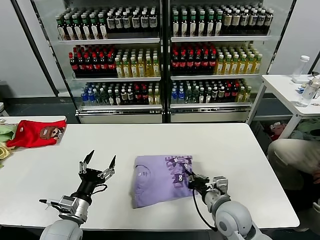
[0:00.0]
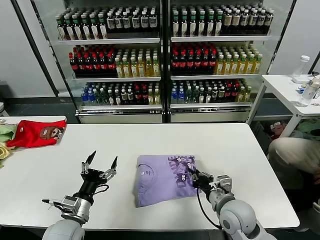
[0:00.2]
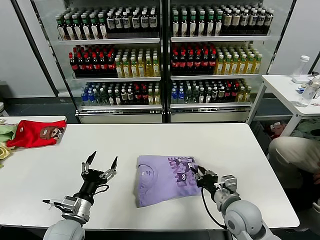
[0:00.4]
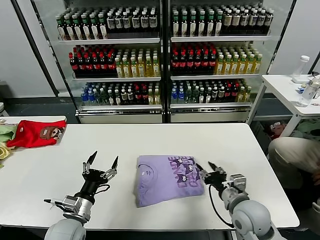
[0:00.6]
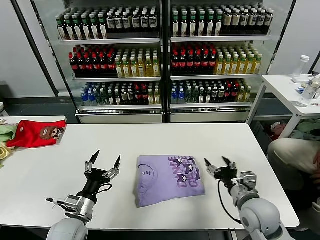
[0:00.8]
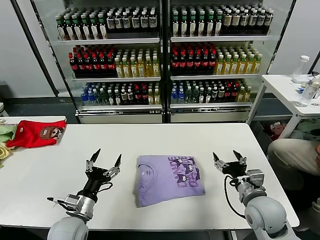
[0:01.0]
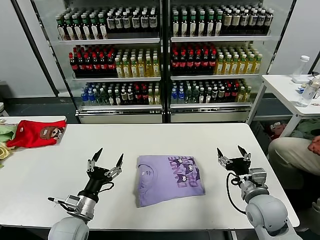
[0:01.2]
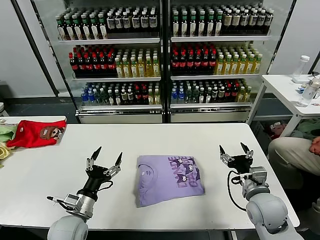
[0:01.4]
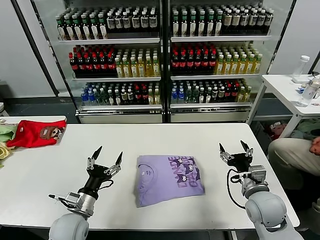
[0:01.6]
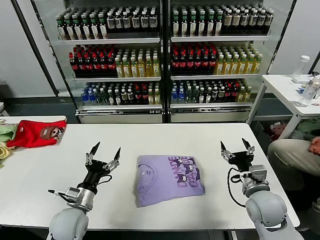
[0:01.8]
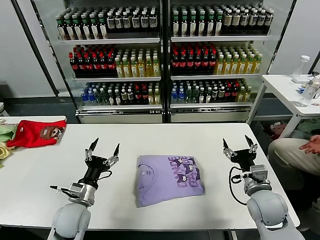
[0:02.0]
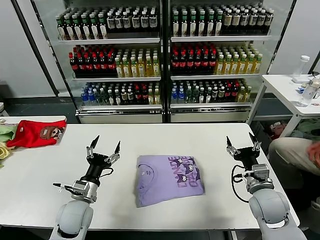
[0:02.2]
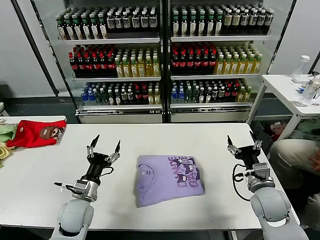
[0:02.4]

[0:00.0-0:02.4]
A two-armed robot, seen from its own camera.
Task of the whole recording: fold and organize the clothes.
0:00.0 to 0:01.2: The right gripper shifts about 10 cm to the right, and opens.
0:01.2 to 0:02.4: The left gripper heads forward, covering roughly 5 cm.

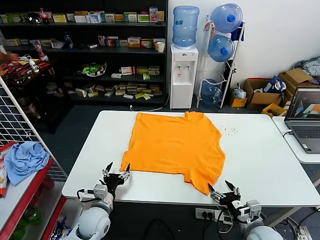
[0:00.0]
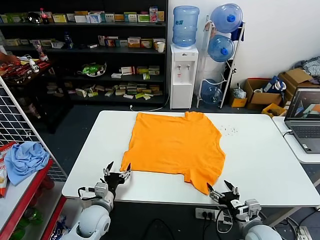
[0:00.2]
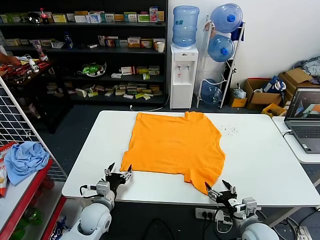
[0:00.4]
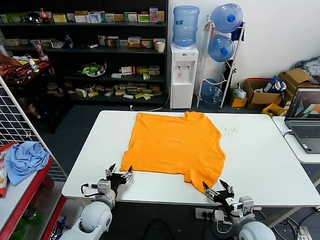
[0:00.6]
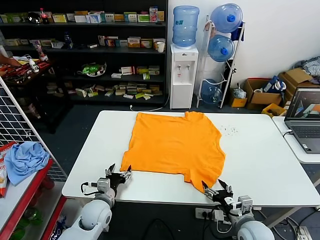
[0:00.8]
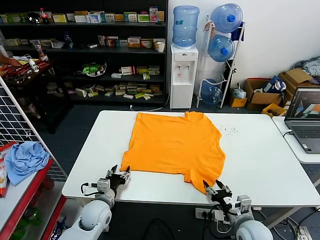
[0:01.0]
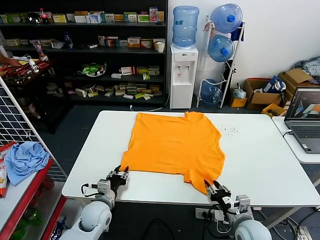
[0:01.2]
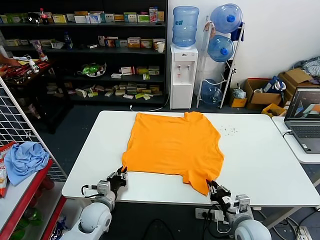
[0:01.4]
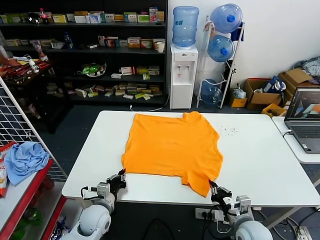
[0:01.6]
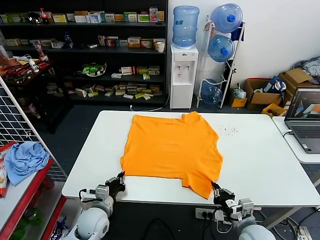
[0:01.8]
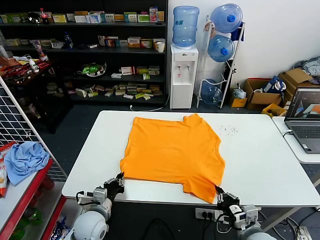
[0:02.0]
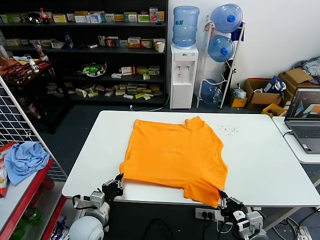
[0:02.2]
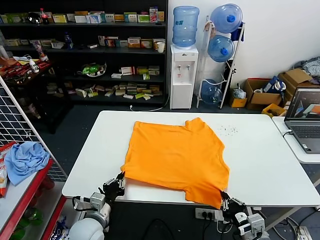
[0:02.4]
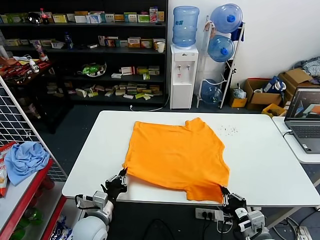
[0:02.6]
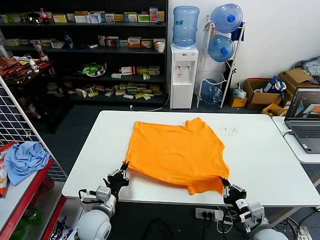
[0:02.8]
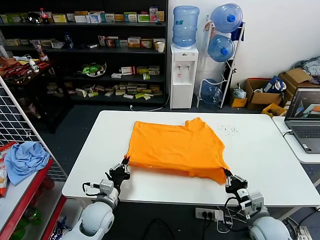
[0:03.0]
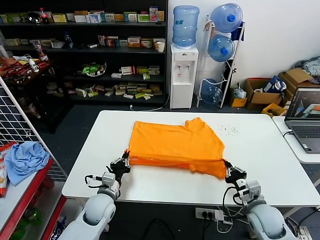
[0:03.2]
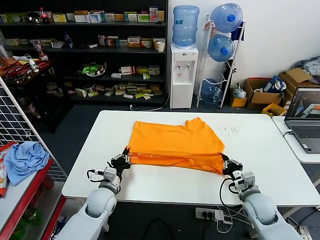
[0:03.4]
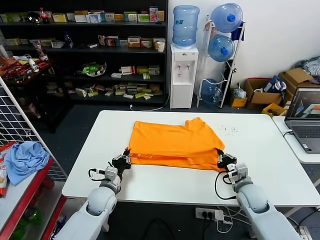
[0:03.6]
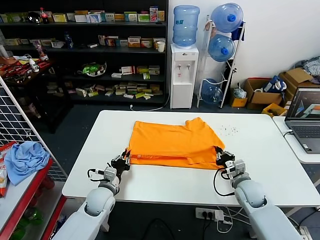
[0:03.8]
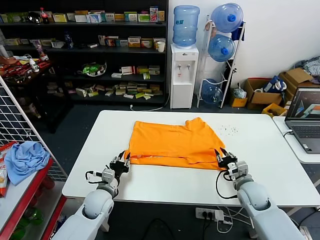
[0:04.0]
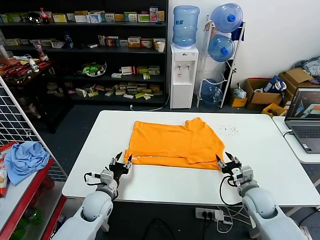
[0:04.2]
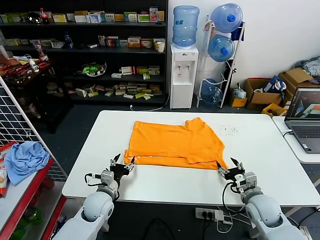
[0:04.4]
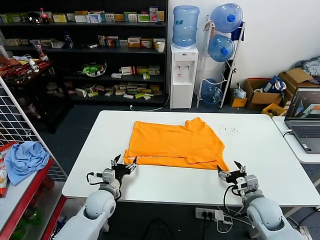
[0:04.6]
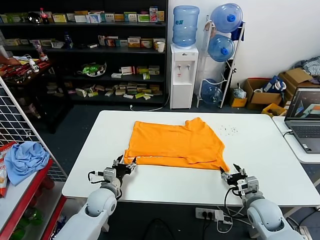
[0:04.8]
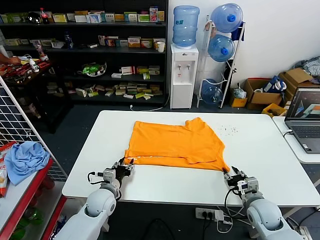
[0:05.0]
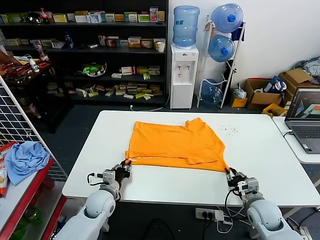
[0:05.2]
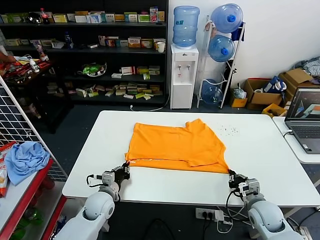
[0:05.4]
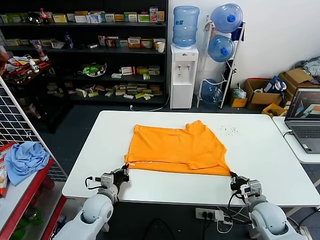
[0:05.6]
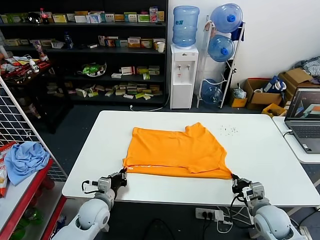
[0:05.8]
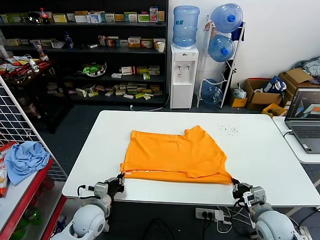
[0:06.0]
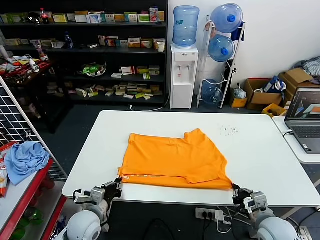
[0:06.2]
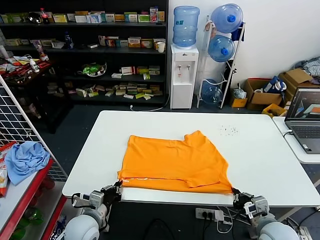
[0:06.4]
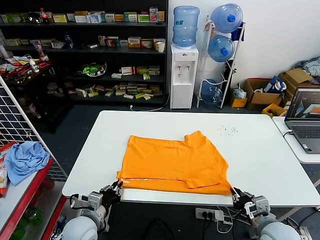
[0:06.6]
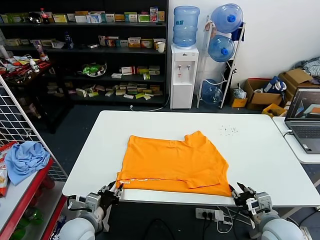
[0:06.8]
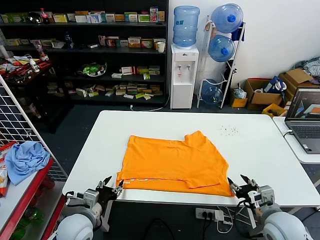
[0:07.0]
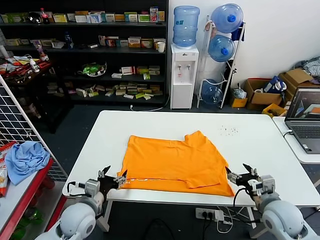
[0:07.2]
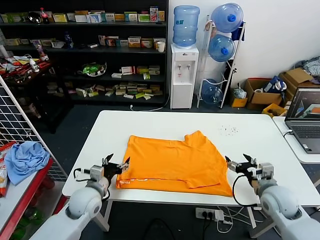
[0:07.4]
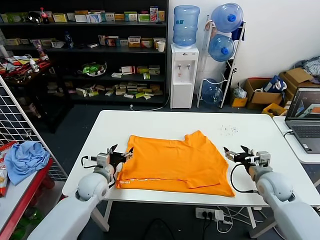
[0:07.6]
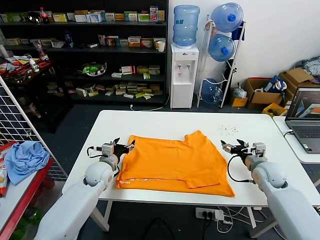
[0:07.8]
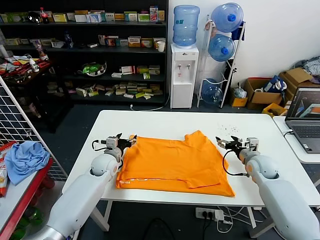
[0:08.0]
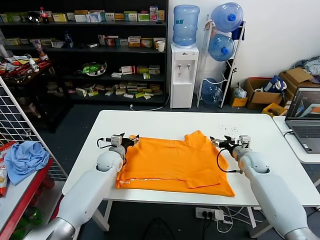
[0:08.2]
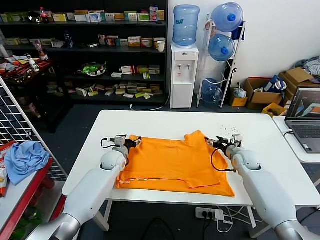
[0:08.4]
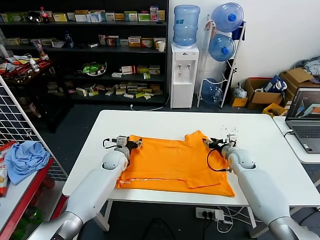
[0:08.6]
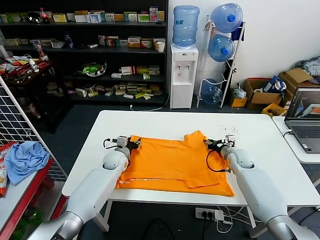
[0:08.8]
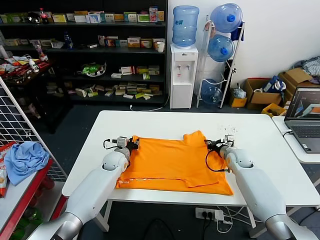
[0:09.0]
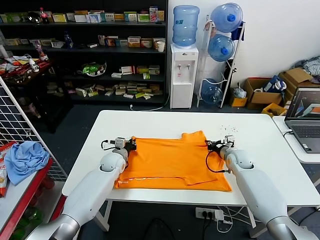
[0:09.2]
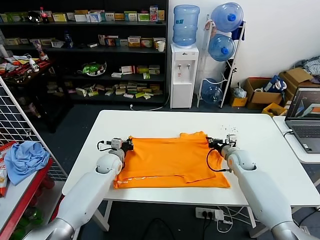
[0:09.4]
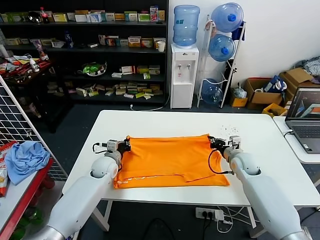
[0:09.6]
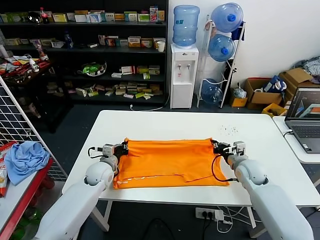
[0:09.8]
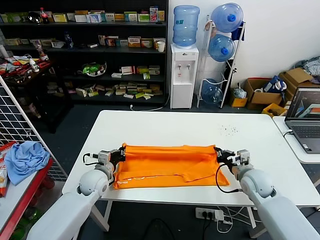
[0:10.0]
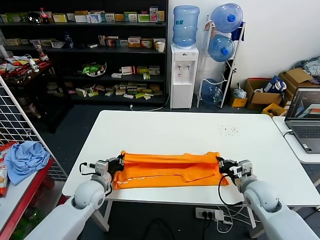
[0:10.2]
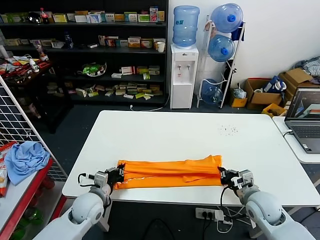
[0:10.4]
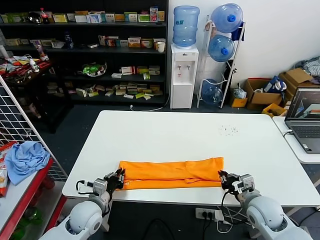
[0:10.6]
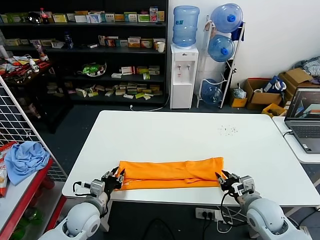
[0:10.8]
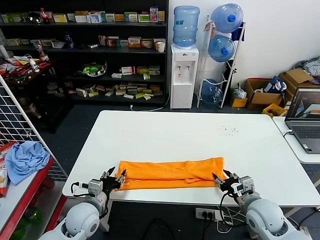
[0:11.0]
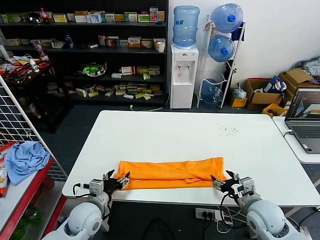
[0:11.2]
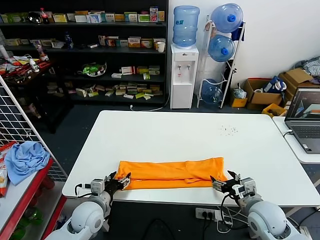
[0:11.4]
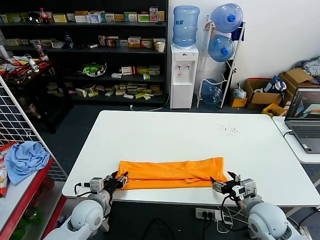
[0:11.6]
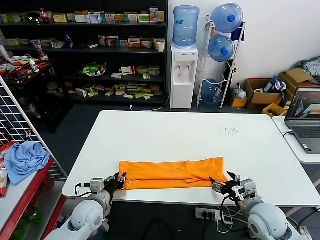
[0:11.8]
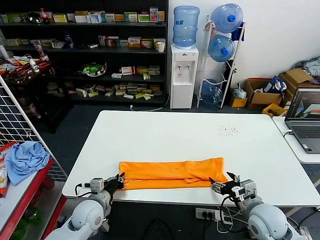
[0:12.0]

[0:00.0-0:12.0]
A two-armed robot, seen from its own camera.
Task of the whole recording: fold and organize the clothes.
Step, 0:00.0 to 0:01.6: use both grippers simultaneously to clamp the lower edge of the clothing fabric.
Step, 0:02.0 to 0:04.0: use both grippers to drag the lower edge of the fabric forward and fold it over the upper edge.
Step, 0:04.2 to 0:06.6: Drag the clothes downward with both gripper.
Step, 0:07.0 to 0:09.2: use both grippers simultaneously to clamp the upper edge of the clothing fabric.
Step, 0:09.6 to 0:10.6: use both grippers to drag the upper edge of the fabric backward and fold it over the lower edge.
0:01.6 to 0:03.0: The right gripper travels backward and back again, approximately 5 cm each way.
0:03.0 to 0:04.4: The right gripper opens up. Meanwhile the left gripper opens its fingers.
0:04.4 to 0:06.0: The left gripper changes place by about 5 cm, and closes, while the right gripper travels backward by approximately 5 cm, and closes up.
0:06.0 to 0:07.6: The grippers both shift forward by about 10 cm. The right gripper opens up. Meanwhile the left gripper opens.
0:07.6 to 0:09.0: The left gripper moves forward, roughly 15 cm, and closes, while the right gripper shifts about 15 cm forward and downward, and closes up.
0:09.0 to 0:10.4: Both grippers travel together backward, roughly 20 cm. The left gripper closes.
0:10.4 to 0:12.0: The right gripper shifts by roughly 5 cm, and opens up, while the left gripper opens, then closes once more.

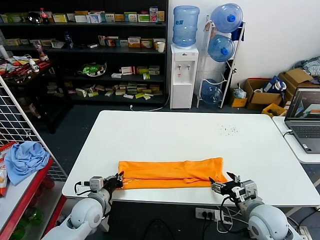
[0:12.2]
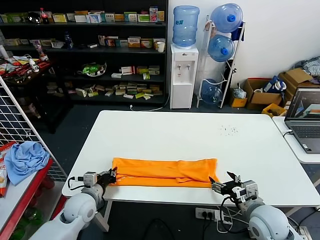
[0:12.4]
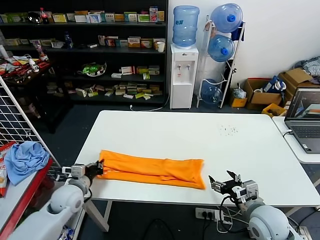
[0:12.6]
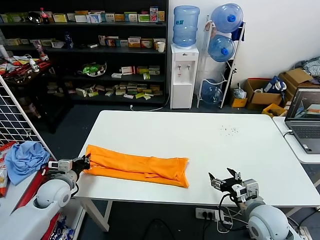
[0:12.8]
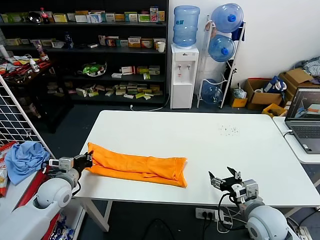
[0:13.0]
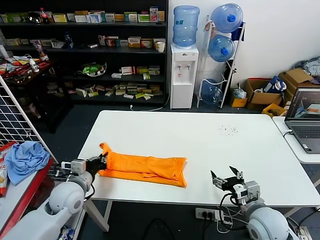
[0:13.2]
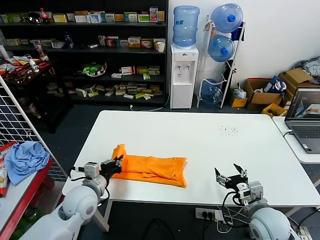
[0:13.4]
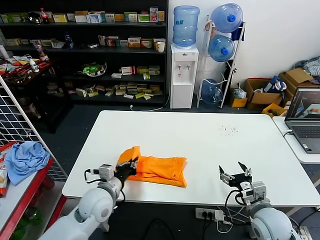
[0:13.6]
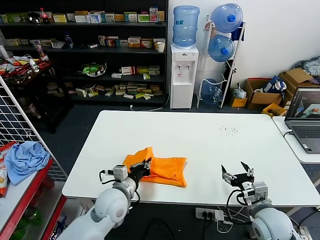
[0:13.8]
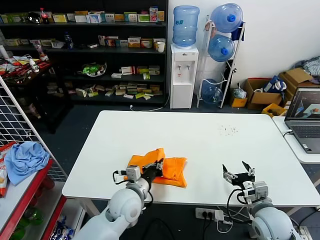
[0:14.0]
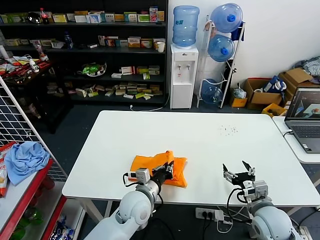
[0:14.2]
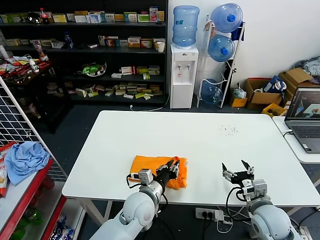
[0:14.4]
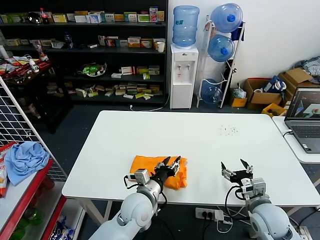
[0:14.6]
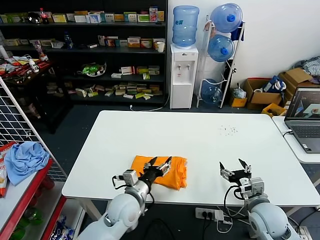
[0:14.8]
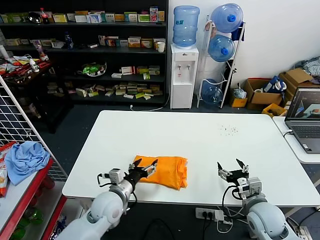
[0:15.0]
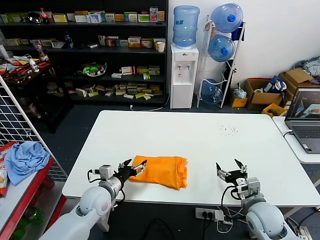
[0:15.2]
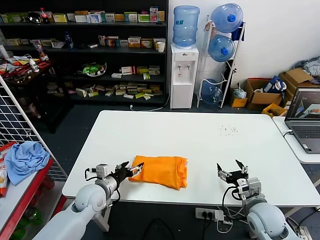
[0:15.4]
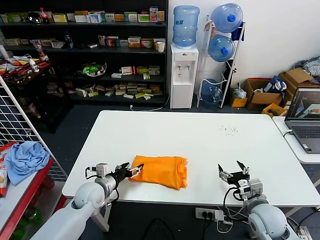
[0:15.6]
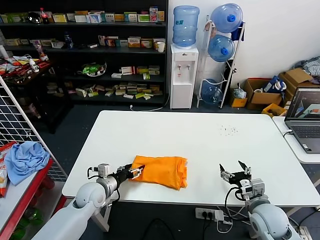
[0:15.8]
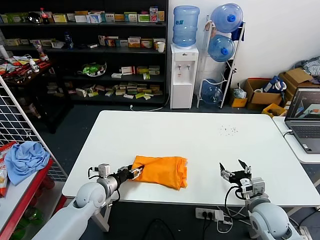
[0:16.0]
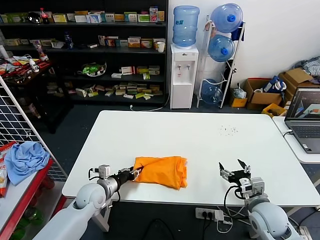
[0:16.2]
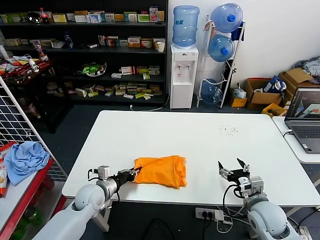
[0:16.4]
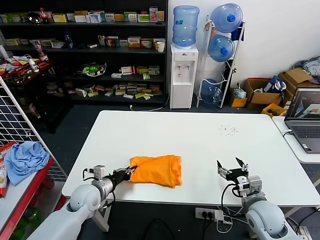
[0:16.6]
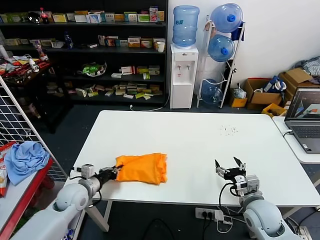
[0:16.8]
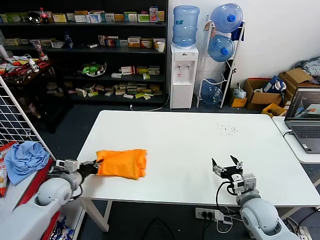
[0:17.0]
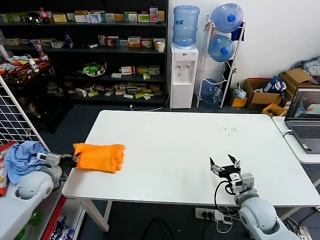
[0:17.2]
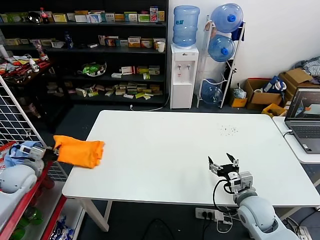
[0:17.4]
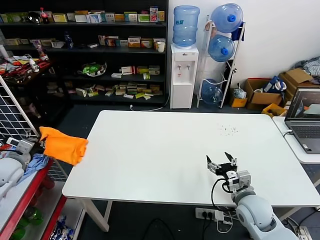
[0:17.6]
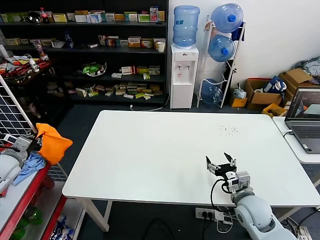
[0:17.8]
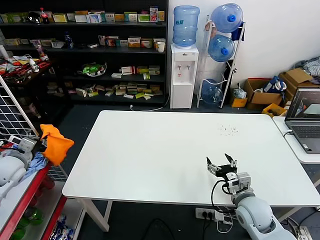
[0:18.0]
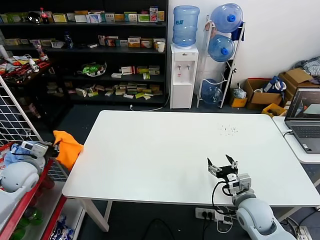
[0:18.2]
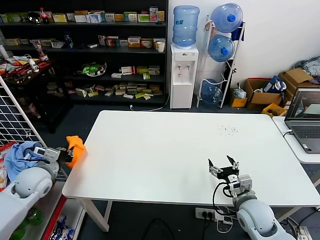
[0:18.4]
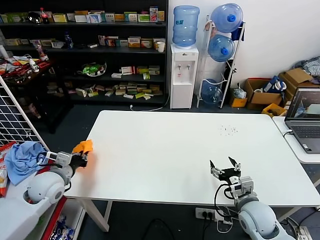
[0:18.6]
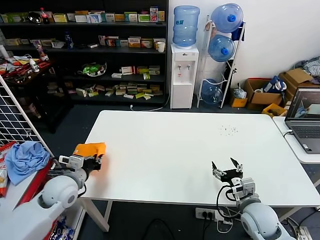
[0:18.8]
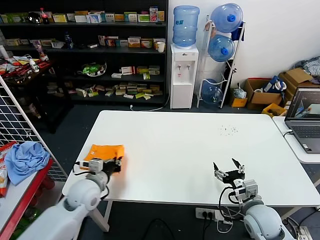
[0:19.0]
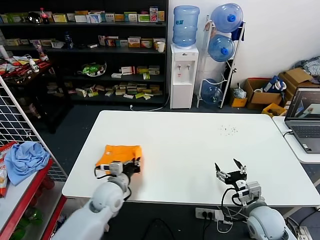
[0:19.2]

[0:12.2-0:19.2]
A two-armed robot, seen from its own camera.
Task of the whole recording: fold and organize the clothes.
Step, 0:12.4 to 0:14.2: use the left gripper to drag the left edge of the fabric to the left and folds it over the right edge.
0:12.2 to 0:13.6: The left gripper travels upward by approximately 5 cm, and moves about 10 cm to the left and comes back.
0:13.6 to 0:15.0: The left gripper reaches some 15 cm to the right, then returns, and opens its fingers.
0:15.0 to 0:16.4: The left gripper travels to the left by roughly 10 cm, and closes.
0:16.4 to 0:17.8: The left gripper shifts approximately 30 cm to the left and upward.
0:17.8 to 0:19.2: The left gripper is displaced to the right by approximately 30 cm.
